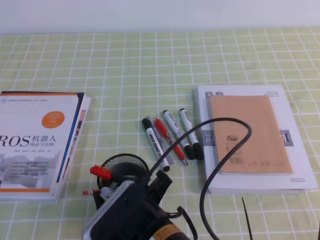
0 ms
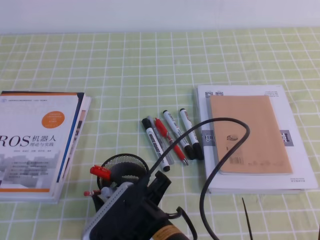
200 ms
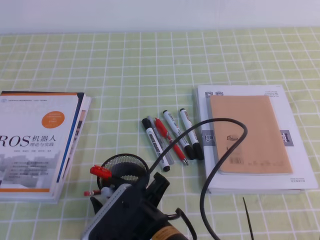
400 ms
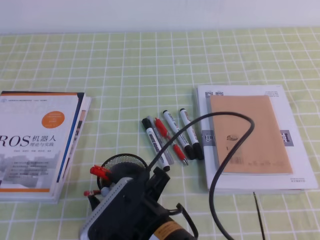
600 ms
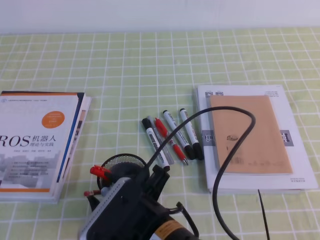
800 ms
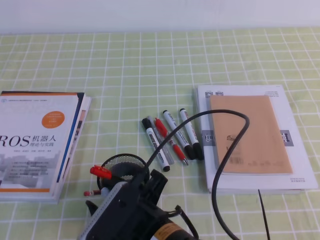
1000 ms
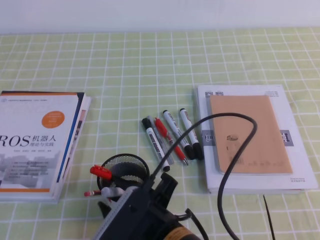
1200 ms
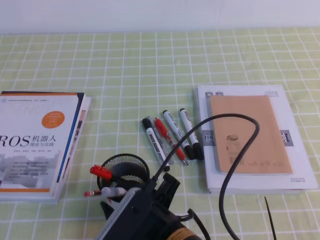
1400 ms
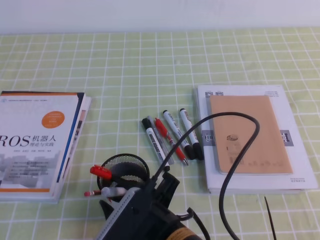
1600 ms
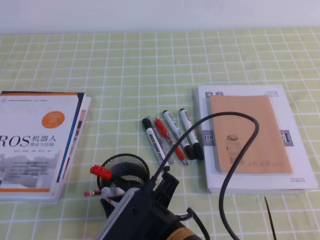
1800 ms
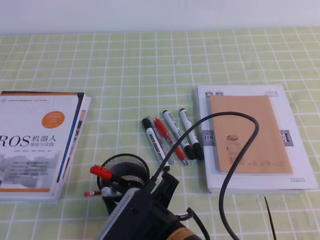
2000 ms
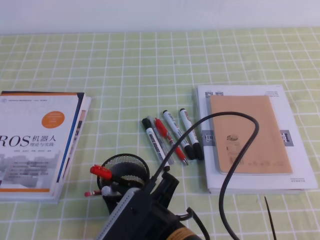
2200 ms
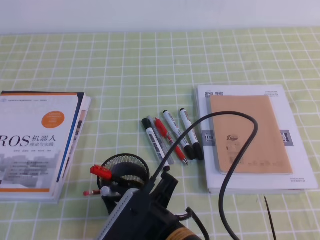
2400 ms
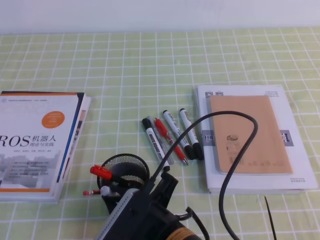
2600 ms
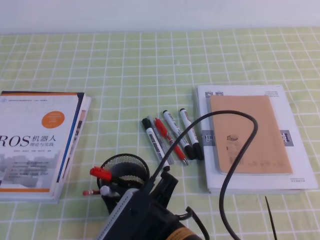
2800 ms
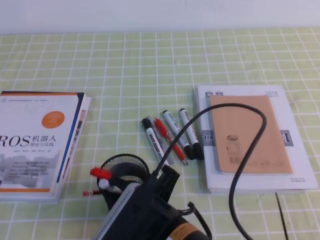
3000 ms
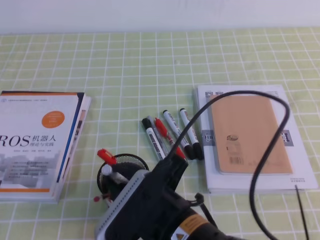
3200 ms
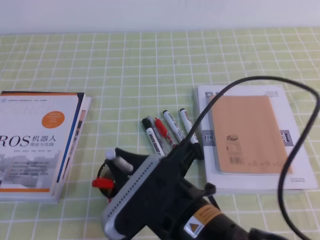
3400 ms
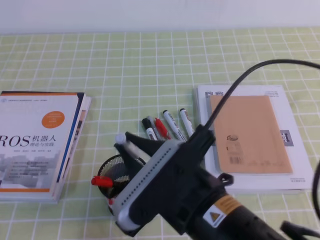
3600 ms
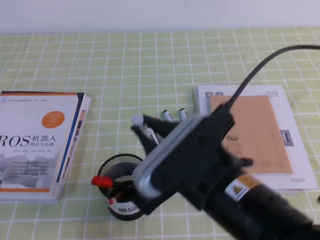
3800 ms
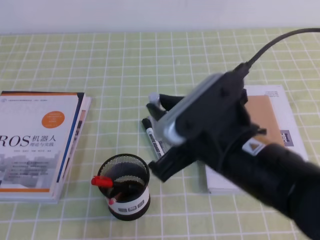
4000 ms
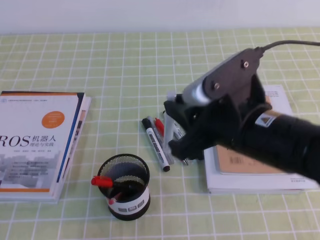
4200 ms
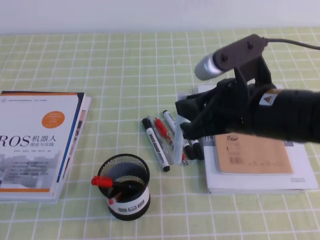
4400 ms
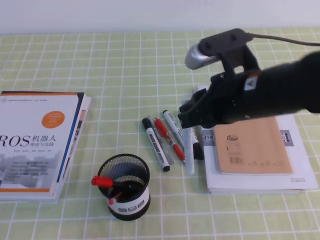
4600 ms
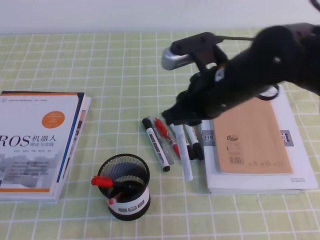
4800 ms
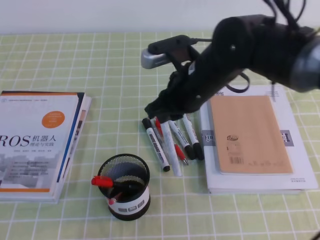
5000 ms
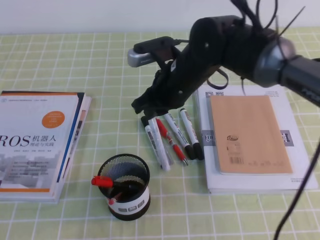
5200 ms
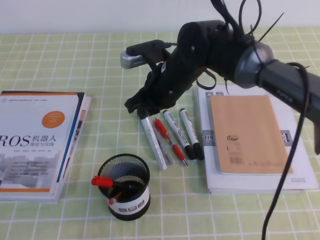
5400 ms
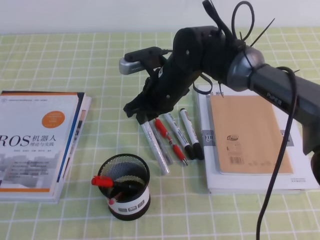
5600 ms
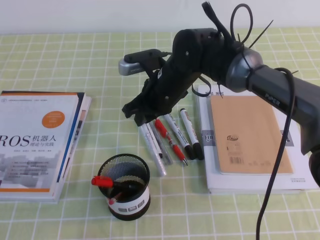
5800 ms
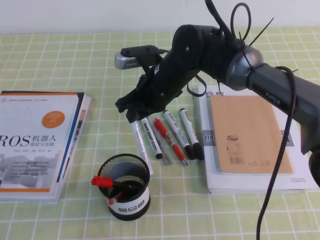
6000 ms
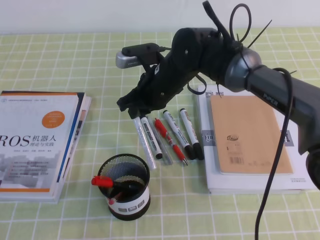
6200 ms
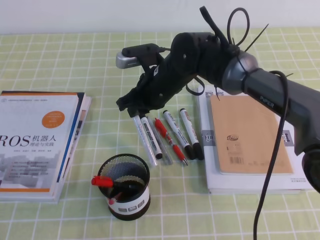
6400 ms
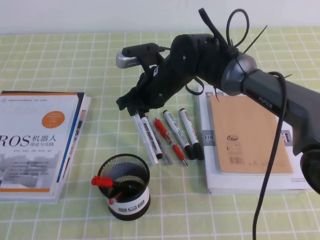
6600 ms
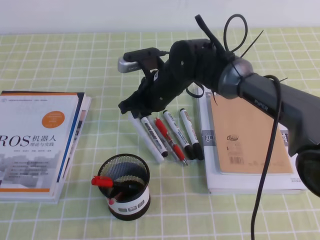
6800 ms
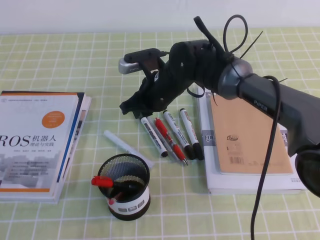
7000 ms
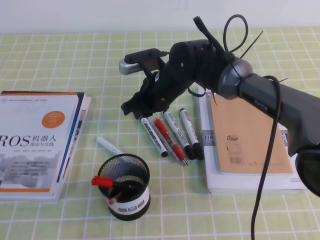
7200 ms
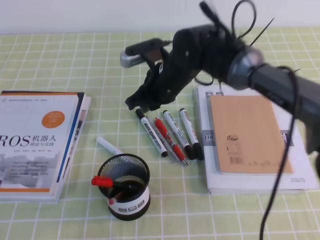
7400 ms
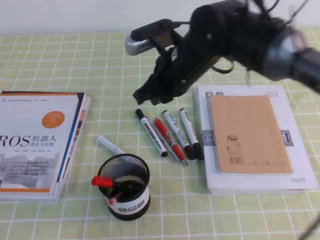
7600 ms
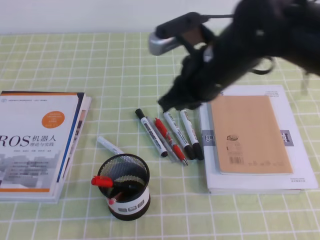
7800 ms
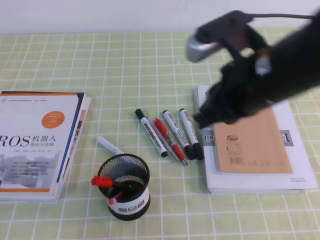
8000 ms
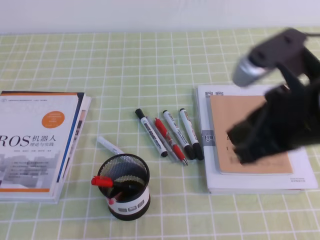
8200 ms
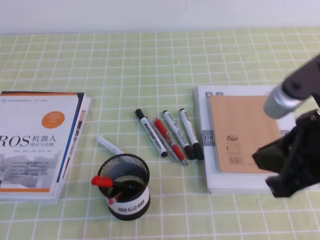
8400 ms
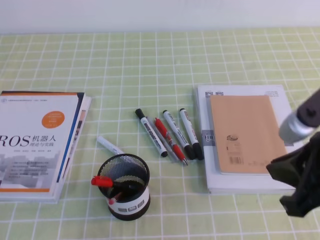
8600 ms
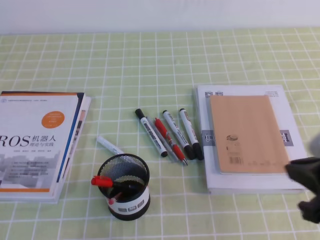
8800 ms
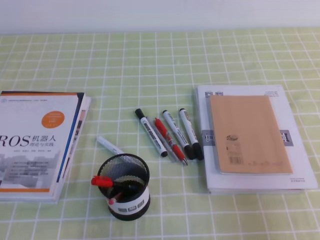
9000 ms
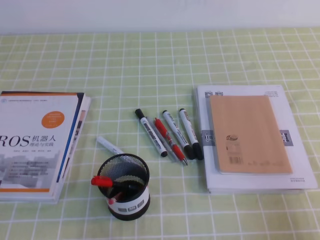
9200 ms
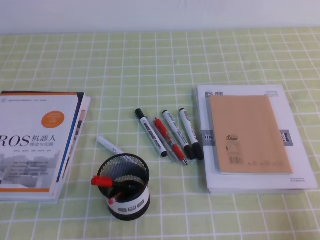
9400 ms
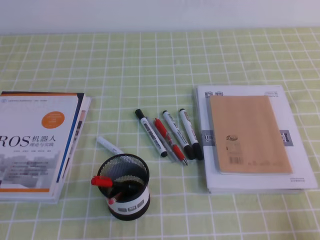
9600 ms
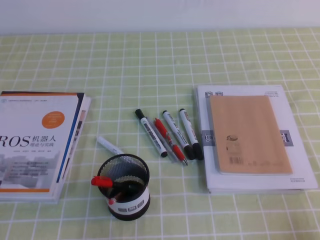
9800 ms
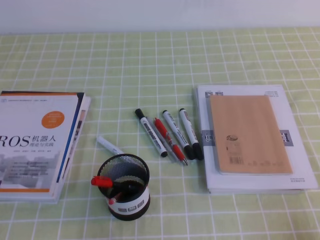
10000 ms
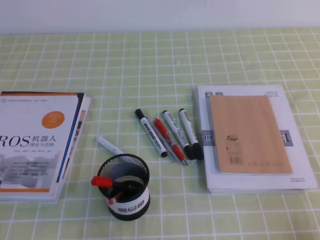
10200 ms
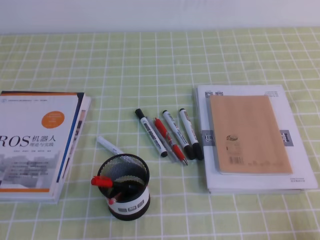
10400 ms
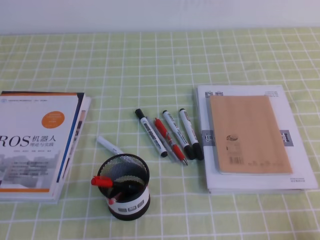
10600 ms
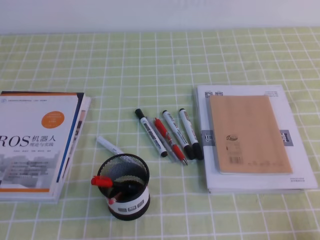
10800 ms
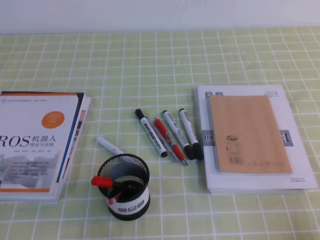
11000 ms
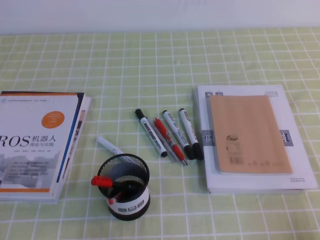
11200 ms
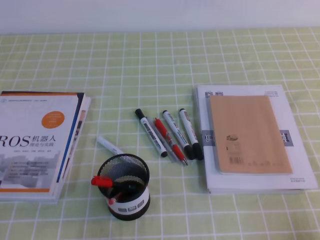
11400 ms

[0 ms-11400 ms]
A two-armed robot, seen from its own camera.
Step, 0 ms to 11400 ms: Pick up the pen from the pen holder.
0 ms to 1400 ms: The grippers move only a little.
1400 ms to 2800 ms: The right gripper closes up.
2800 ms to 4200 ms: The right gripper travels upward, to the right and forward by roughly 15 cm.
4200 ms to 5600 ms: The right gripper travels forward and to the left by about 20 cm.
5600 ms to 7200 ms: There are only small adjustments of the grippers.
7200 ms to 8600 ms: The right gripper goes about 35 cm backward, to the right and upward.
8600 ms to 10000 ms: The right gripper heads downward, to the right and backward, covering approximately 20 cm.
10000 ms to 11400 ms: Both grippers stay put.

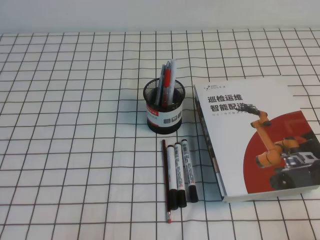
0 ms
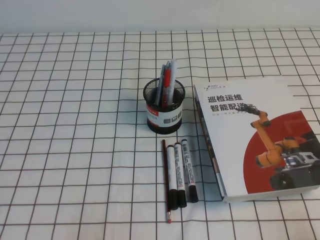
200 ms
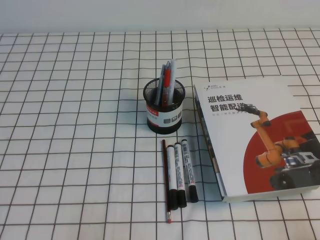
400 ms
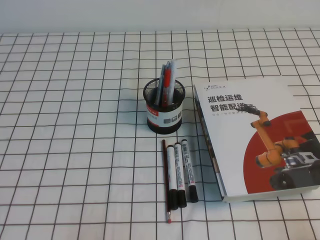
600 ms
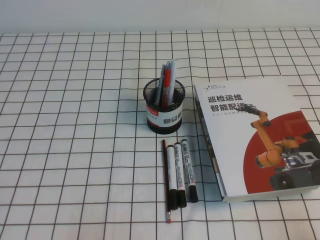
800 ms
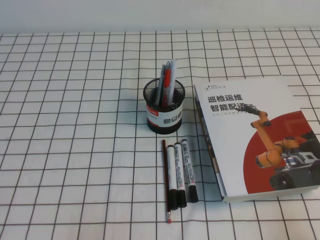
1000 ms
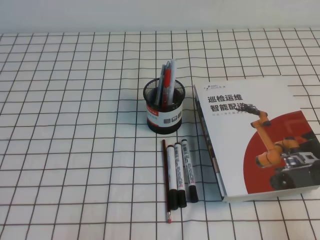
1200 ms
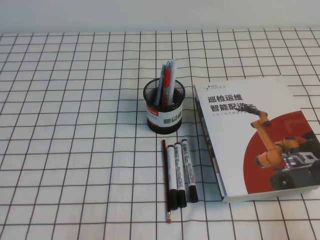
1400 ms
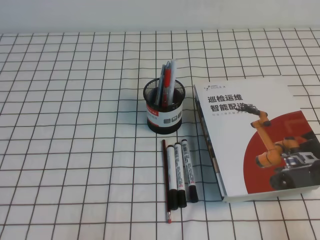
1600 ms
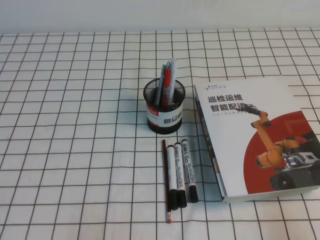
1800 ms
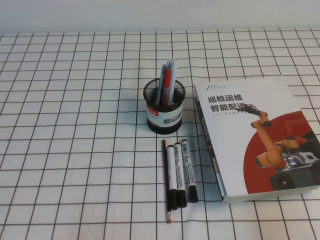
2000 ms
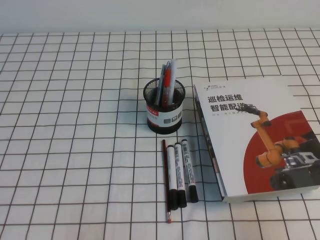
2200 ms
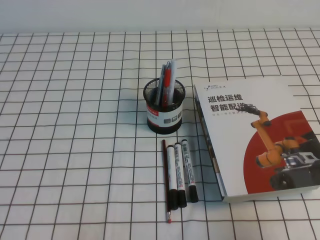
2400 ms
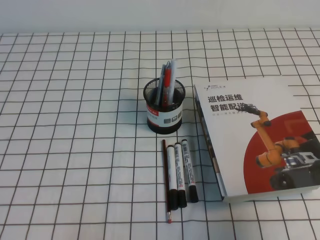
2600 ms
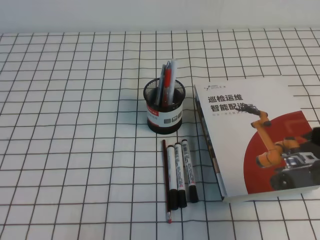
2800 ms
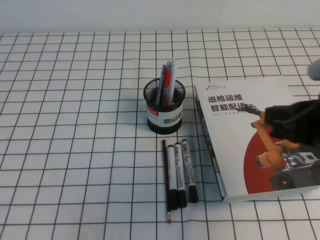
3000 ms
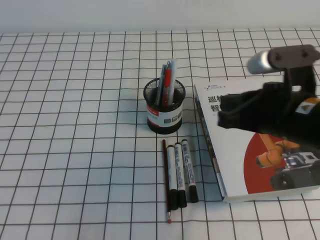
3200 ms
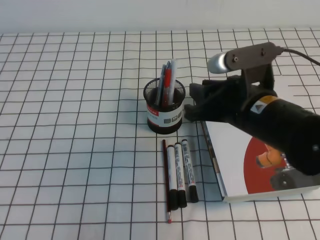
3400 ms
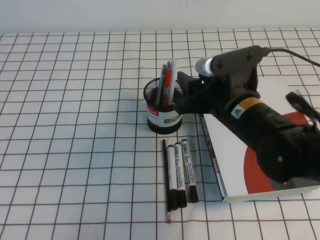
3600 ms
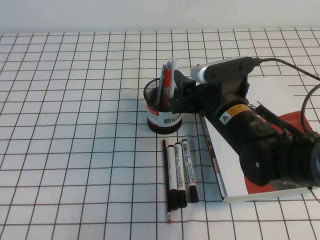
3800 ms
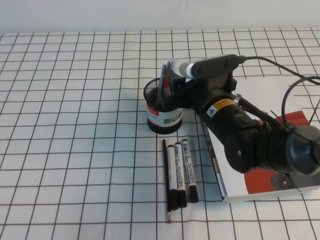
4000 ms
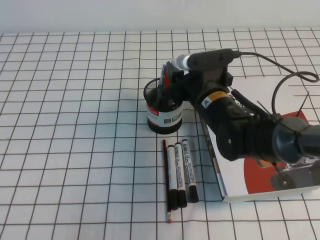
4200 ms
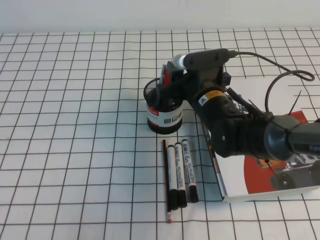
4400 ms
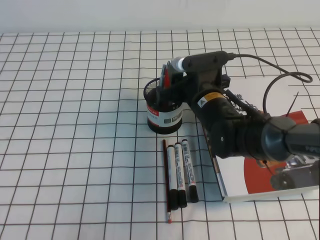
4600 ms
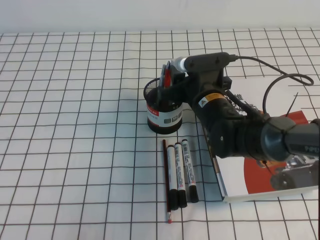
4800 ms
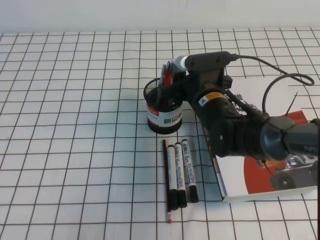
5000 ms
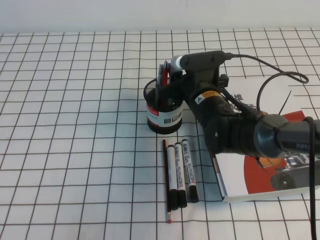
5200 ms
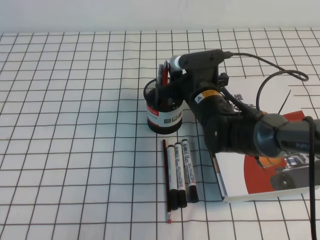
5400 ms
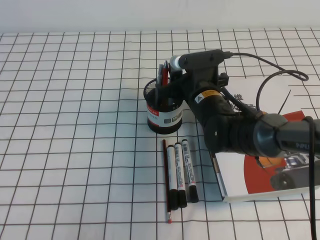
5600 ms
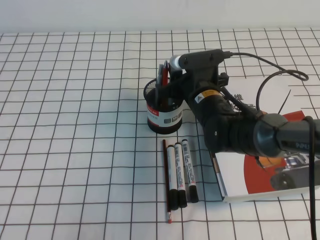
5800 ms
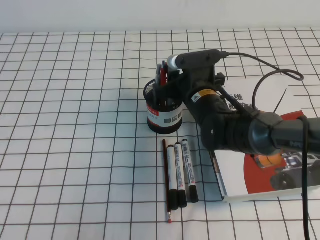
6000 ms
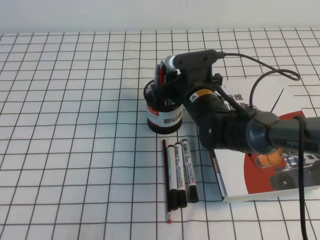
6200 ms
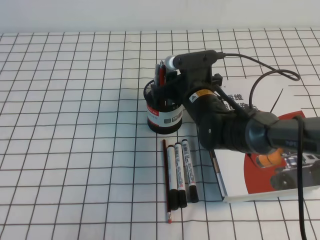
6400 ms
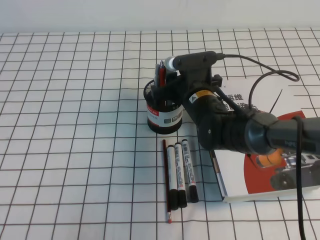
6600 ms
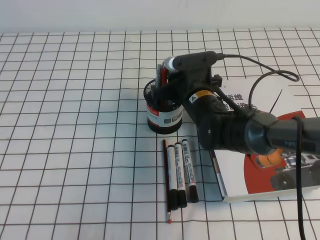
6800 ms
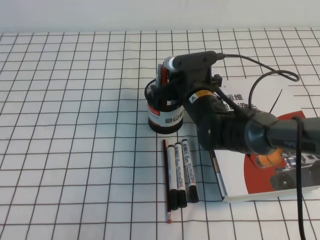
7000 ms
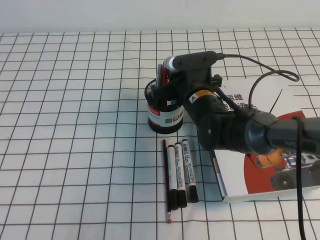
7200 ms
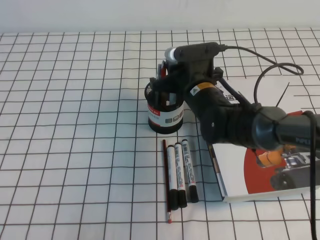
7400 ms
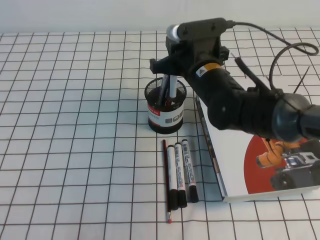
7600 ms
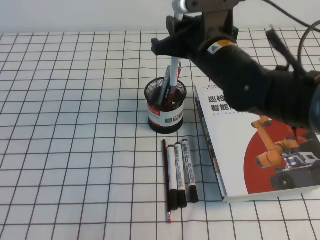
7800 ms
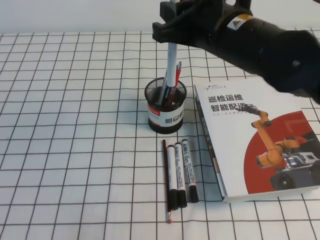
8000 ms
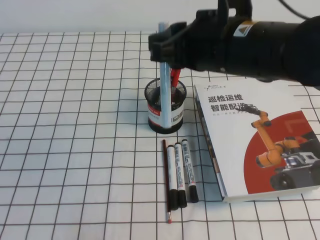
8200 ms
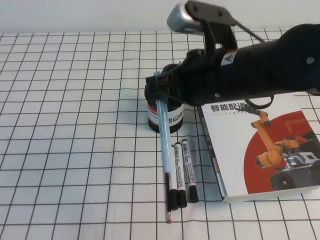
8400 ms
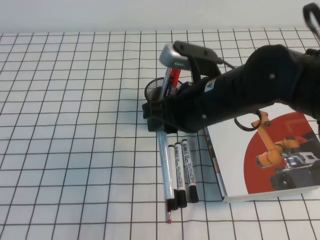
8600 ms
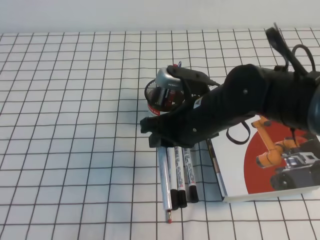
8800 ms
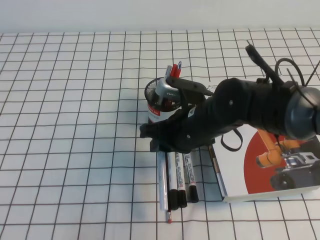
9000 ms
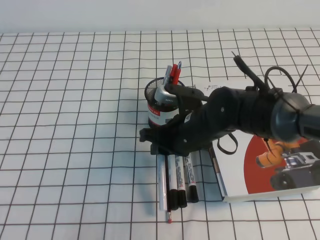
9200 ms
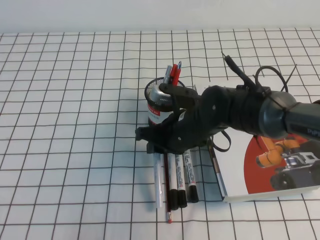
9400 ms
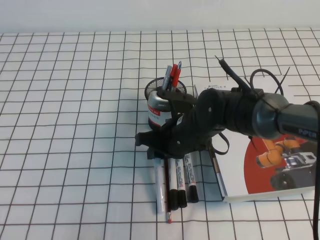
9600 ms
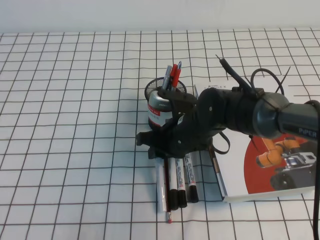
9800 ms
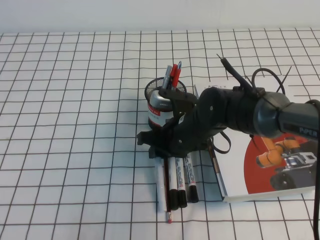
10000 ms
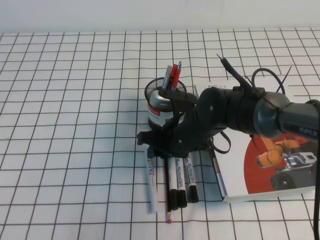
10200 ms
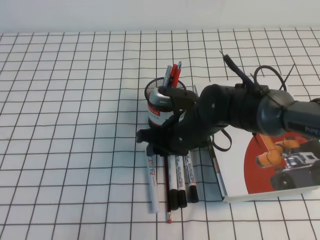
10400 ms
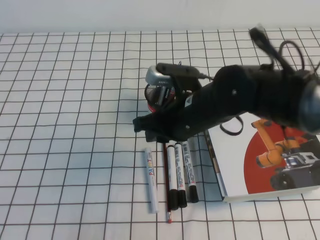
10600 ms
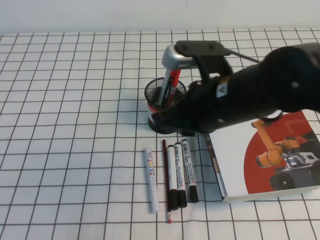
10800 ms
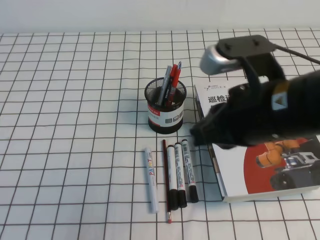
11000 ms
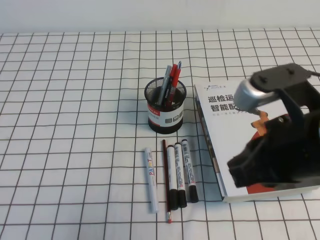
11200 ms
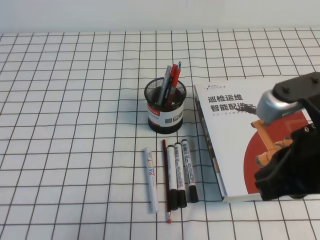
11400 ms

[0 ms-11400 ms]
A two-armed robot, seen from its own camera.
1400 ms to 2800 ms: The right gripper is displaced forward and upward by about 15 cm.
2800 ms to 4200 ms: The right gripper is displaced to the left, forward and downward by some 30 cm, and opens up.
4200 ms to 5600 ms: There are only small adjustments of the grippers.
5600 ms to 7200 ms: The right gripper closes.
7200 ms to 8600 ms: The right gripper is displaced upward and backward by about 15 cm.
8600 ms to 10000 ms: The right gripper heads downward and forward, covering about 15 cm.
10000 ms to 11400 ms: The right gripper shifts approximately 25 cm backward, upward and to the right, and closes.
